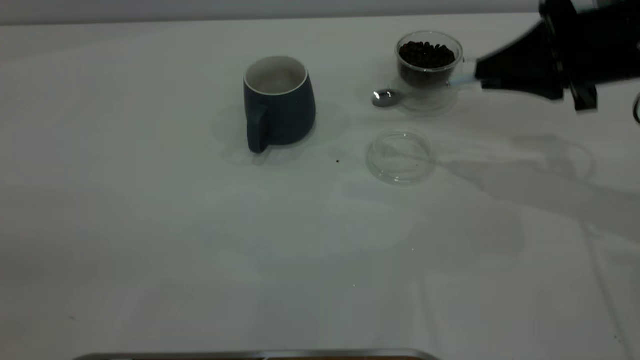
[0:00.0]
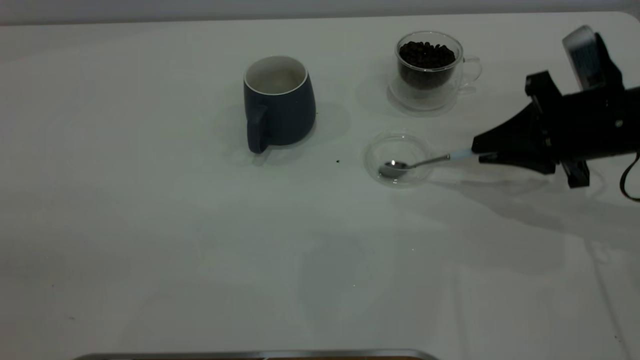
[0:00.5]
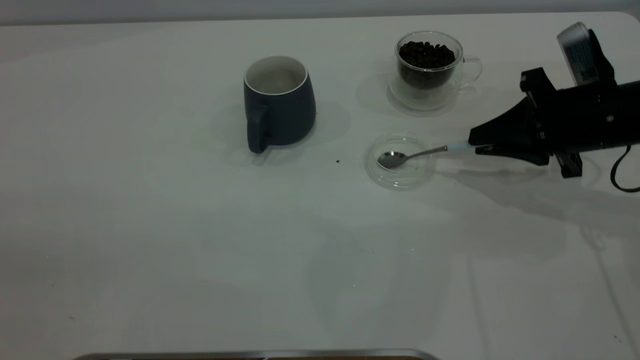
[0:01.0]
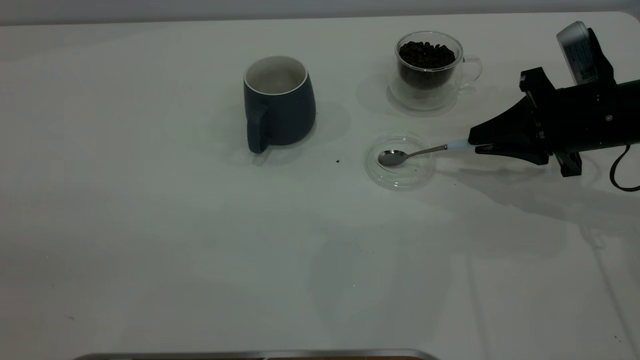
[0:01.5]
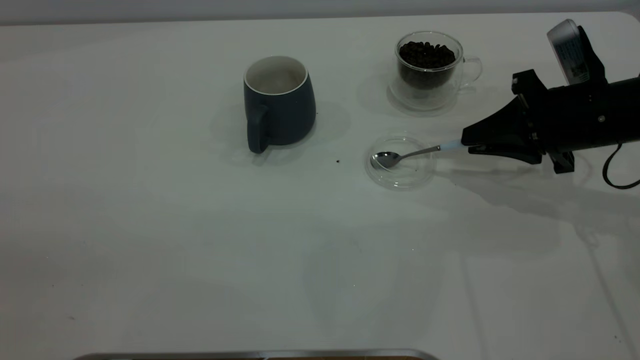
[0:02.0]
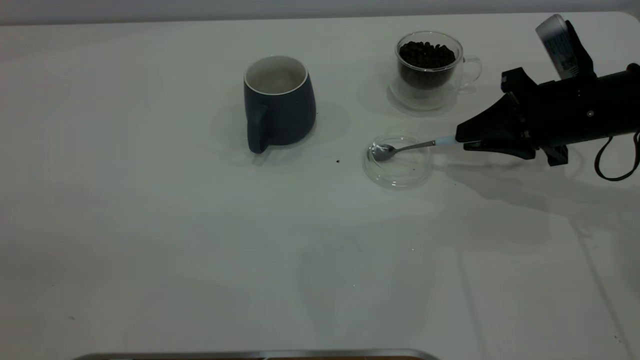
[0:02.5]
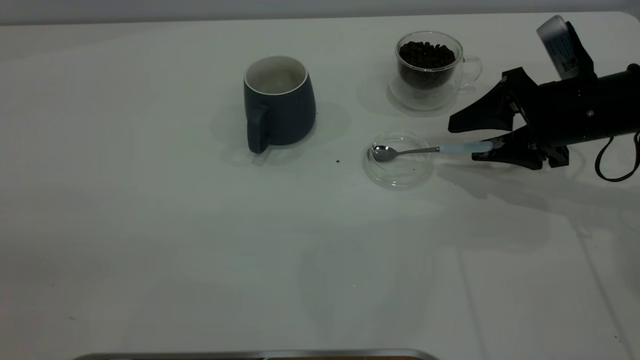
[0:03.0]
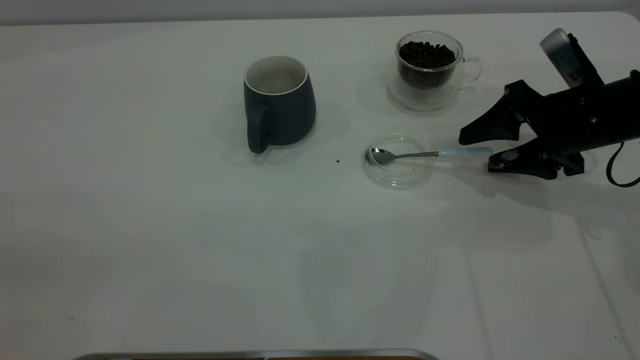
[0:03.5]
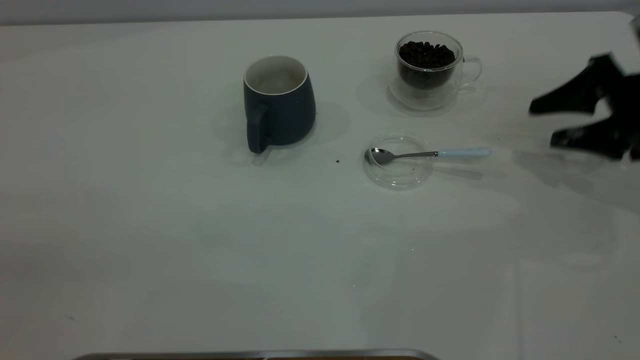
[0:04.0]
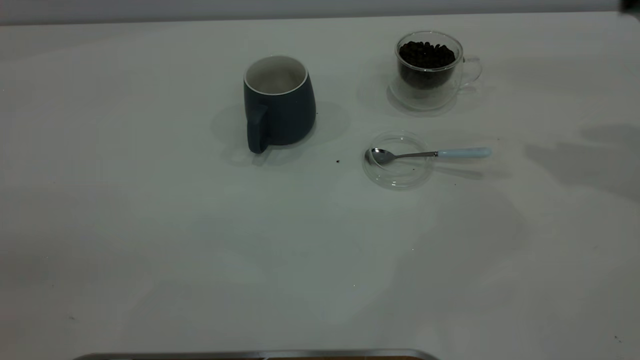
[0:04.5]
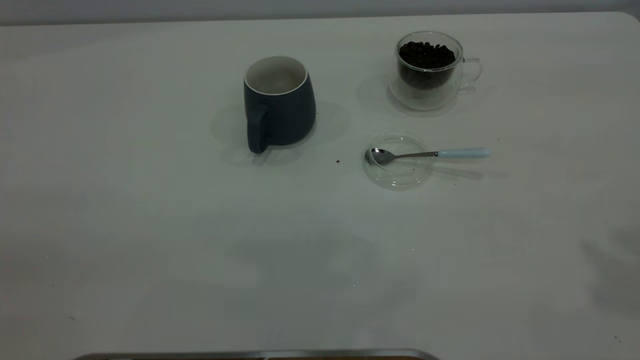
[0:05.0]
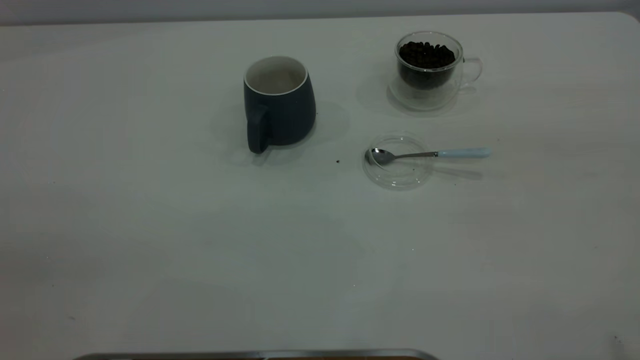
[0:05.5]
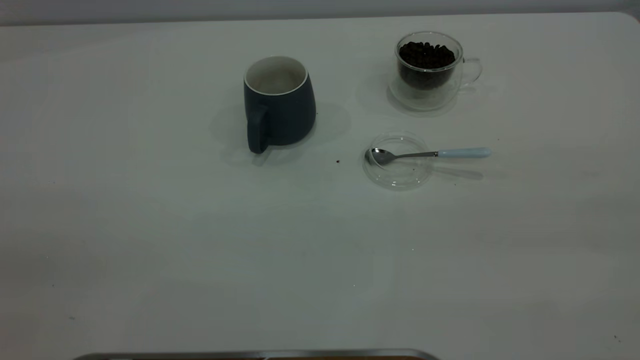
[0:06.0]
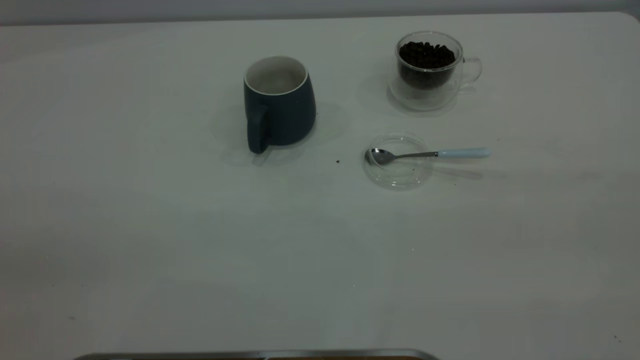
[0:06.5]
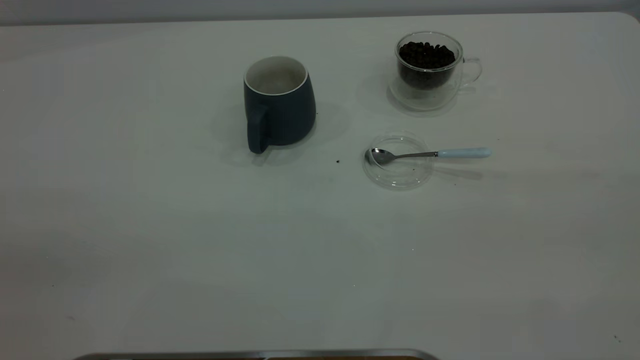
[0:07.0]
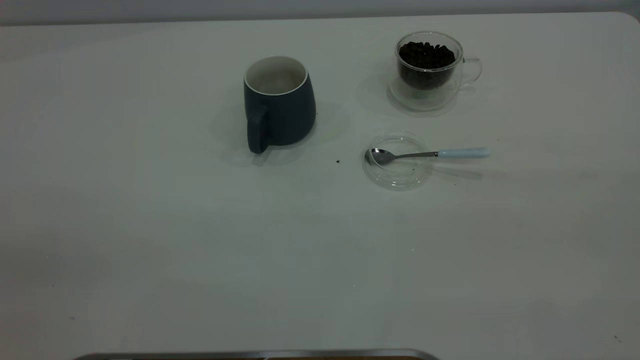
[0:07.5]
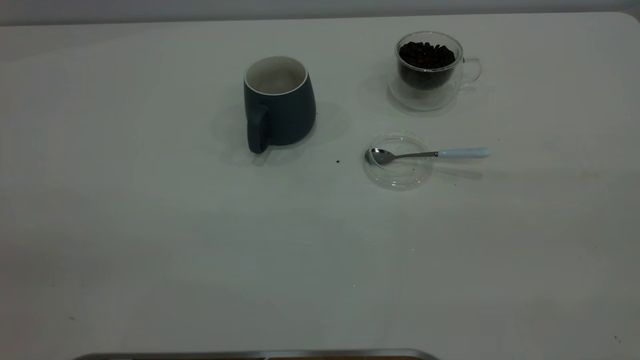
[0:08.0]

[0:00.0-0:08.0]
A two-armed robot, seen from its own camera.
Task of the whole recording: the left gripper place the grey cup in the center of the table, the right gripper take the blue spoon from the cup lid and scoop out the coffee beans from the coffee cup and put them into the grey cup, the right gripper put the spoon back into the cup lid.
Step, 0:00.0 to 0:03.5: Place the spoon back in its original place.
0:00.0 to 0:02.0: The right gripper heads downward, covering roughly 5 cm.
0:02.0 to 0:04.0: The right gripper goes roughly 10 cm to the right, and opens.
0:04.0 to 0:06.0: The right gripper moves backward and upward, some 40 cm.
